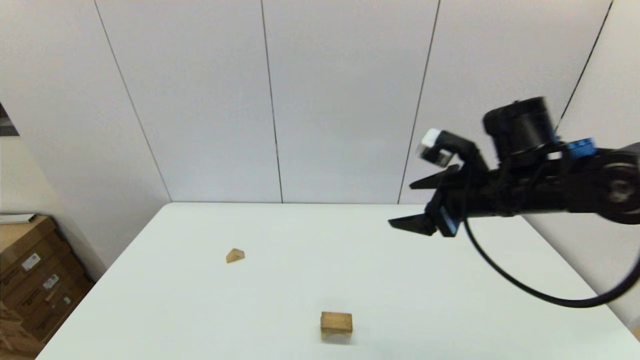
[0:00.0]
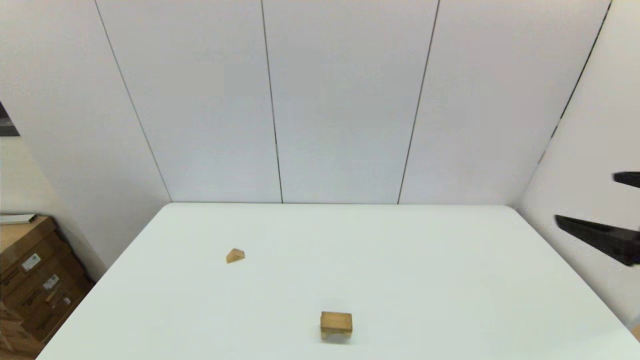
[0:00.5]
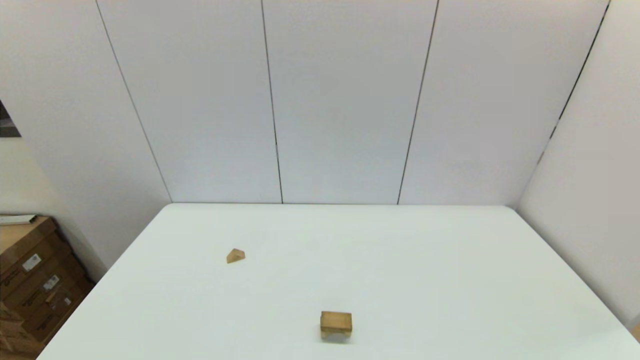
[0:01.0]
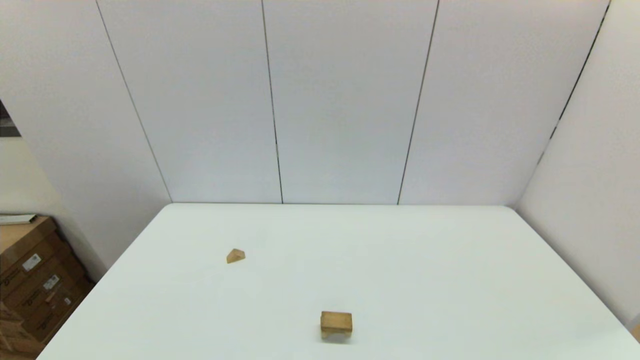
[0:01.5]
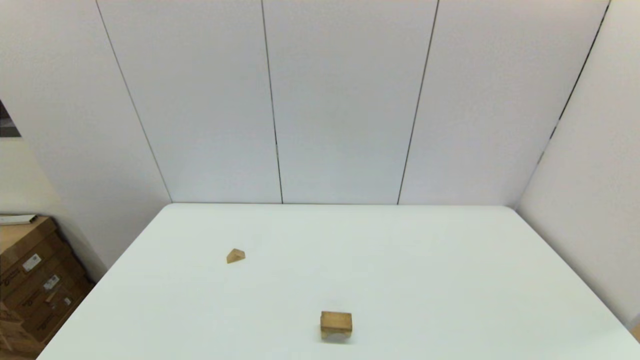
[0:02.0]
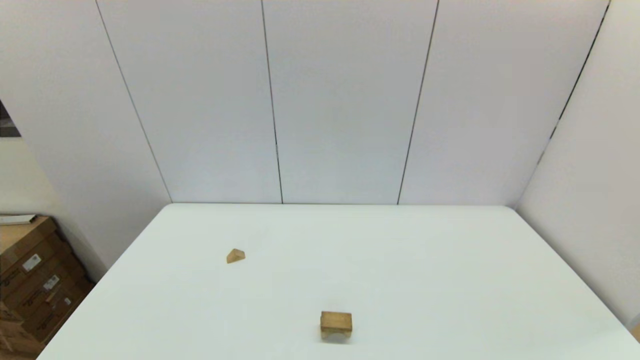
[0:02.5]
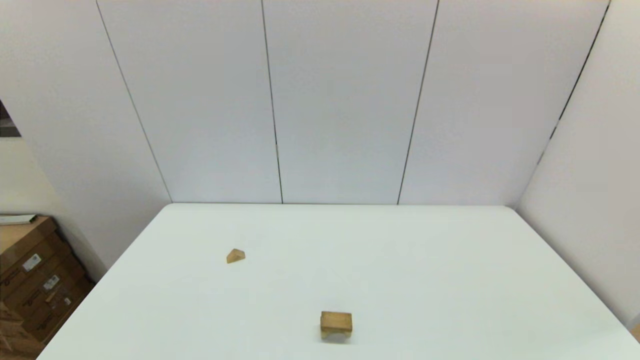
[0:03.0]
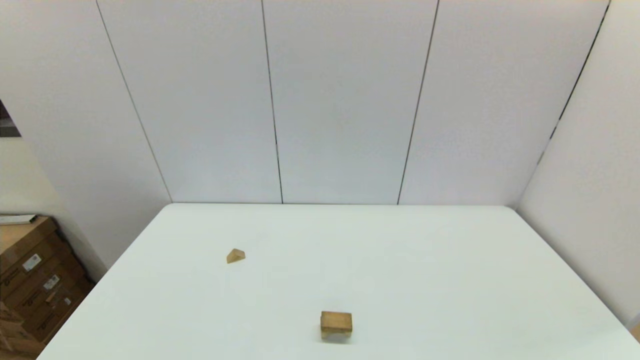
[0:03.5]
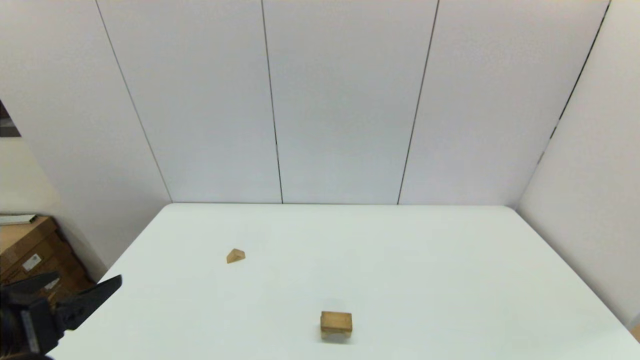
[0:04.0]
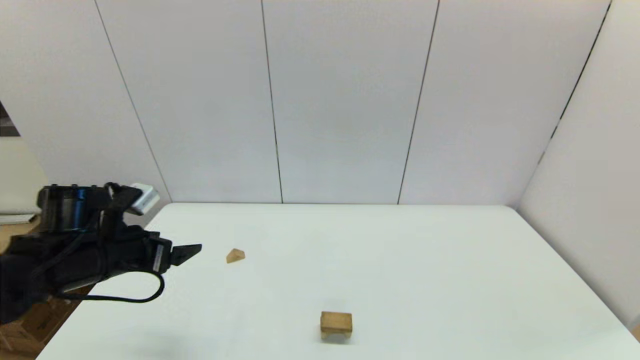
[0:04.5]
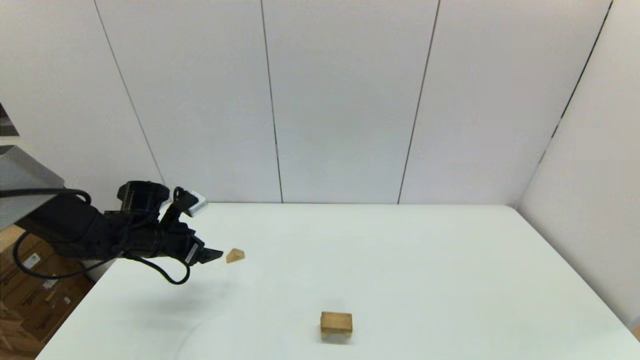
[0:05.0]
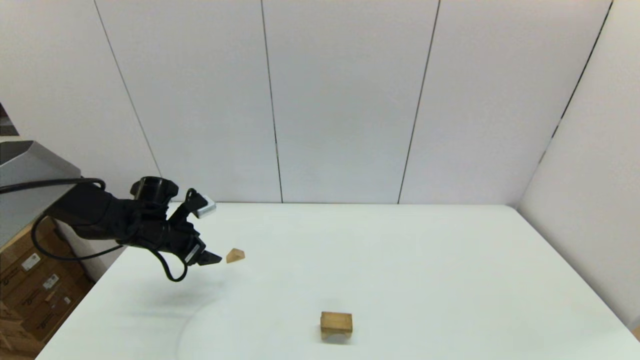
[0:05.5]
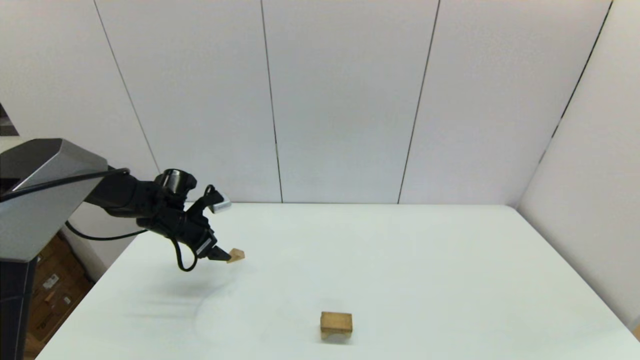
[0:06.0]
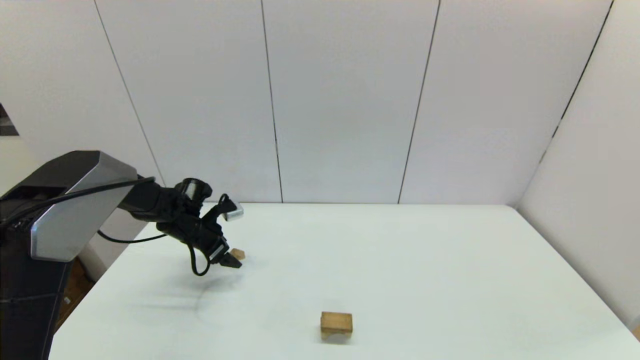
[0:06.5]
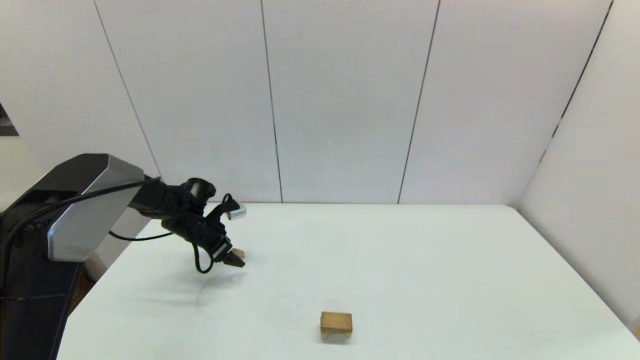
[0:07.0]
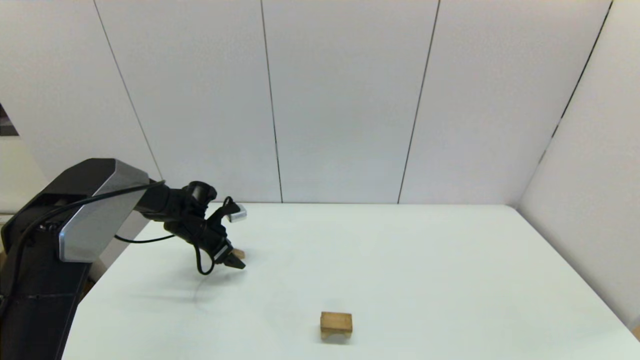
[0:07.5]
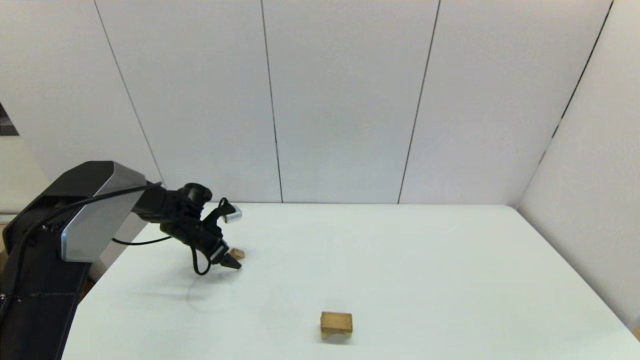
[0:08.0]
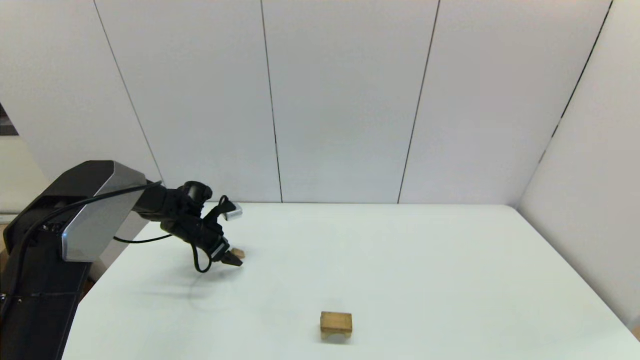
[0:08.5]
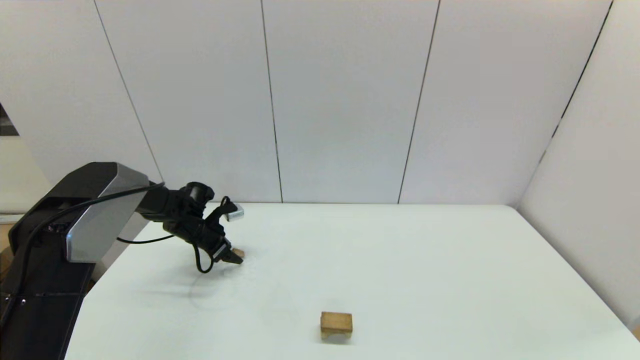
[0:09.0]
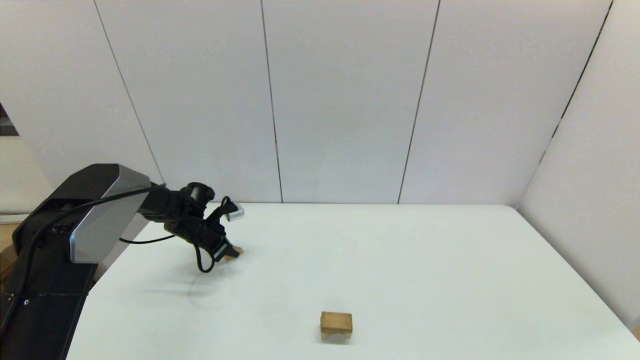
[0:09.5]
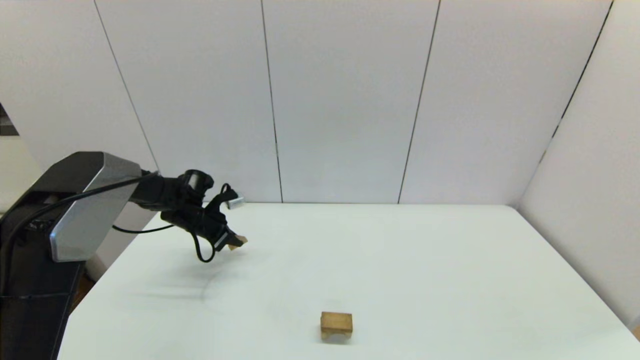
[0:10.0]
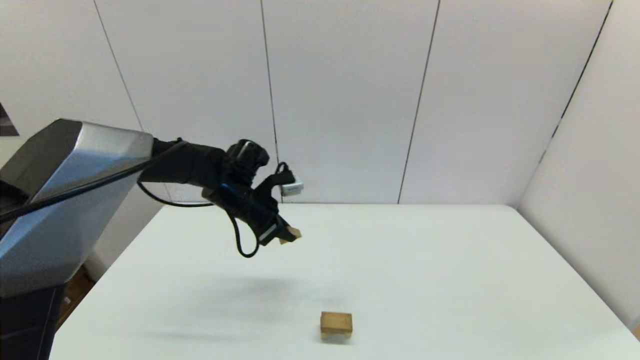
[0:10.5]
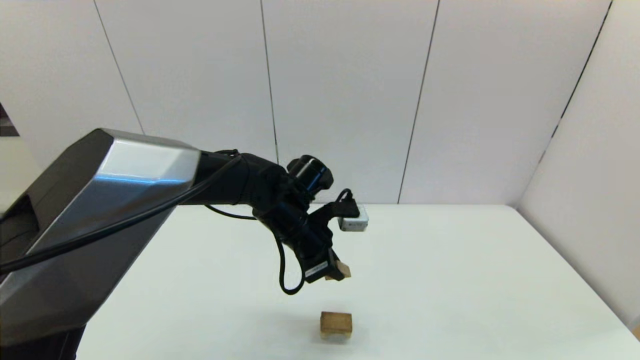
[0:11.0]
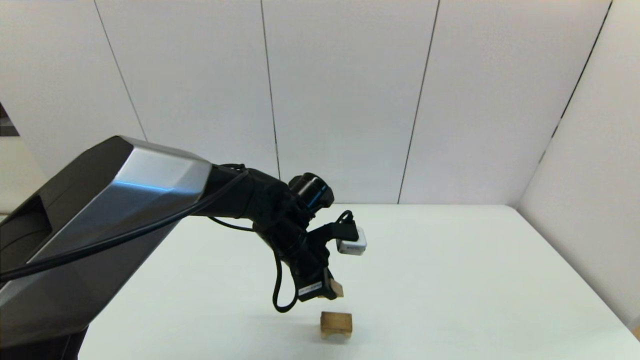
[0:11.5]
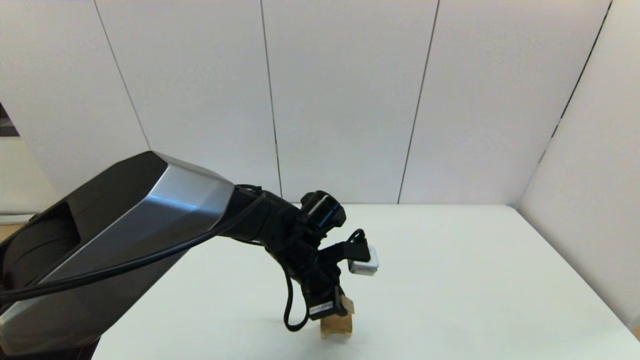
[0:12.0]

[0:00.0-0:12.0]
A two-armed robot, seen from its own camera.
Task of the whole recording: place the arched building blocks in the center of the table, set up the rectangular building blocks, and then set up the triangular building blocks.
Step, 0:00.0 to 0:09.5: Grasp the triangle-shaped block with the left gripper.
0:00.0 to 0:02.0: The right gripper goes some 35 cm backward.
0:02.0 to 0:04.0: The left gripper moves forward and upward, approximately 15 cm.
0:04.0 to 0:06.0: The left gripper travels forward and downward by approximately 35 cm.
0:06.0 to 0:08.0: The left gripper heads downward, covering roughly 5 cm.
0:08.0 to 0:10.0: The left gripper closes up.
0:10.0 to 0:12.0: The left gripper moves to the right and backward, roughly 30 cm.

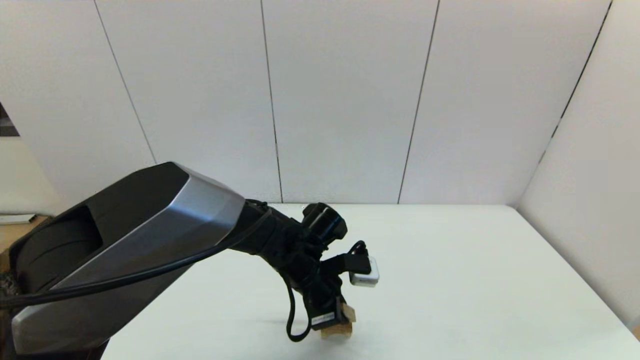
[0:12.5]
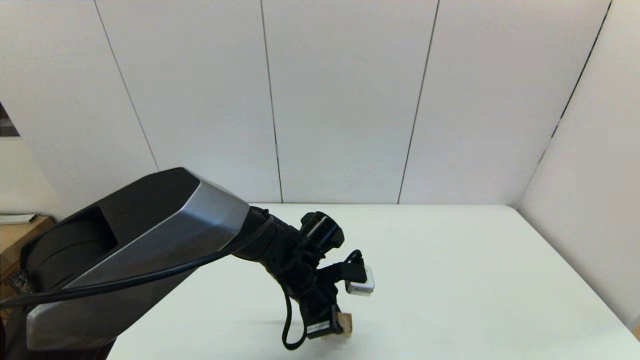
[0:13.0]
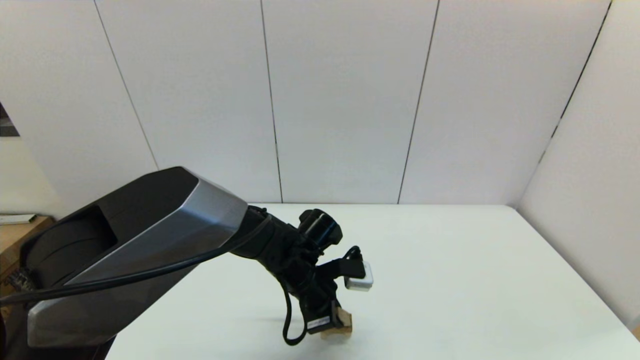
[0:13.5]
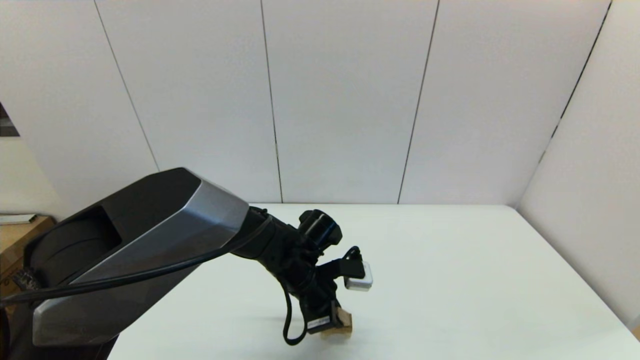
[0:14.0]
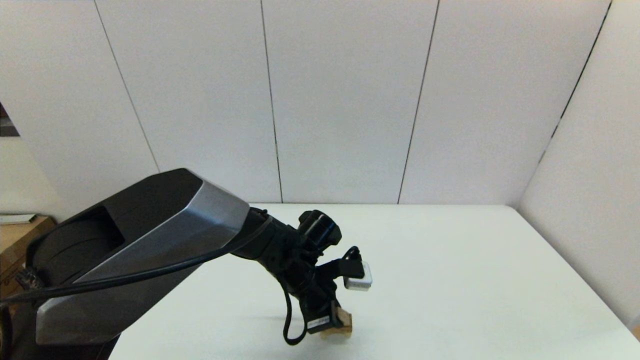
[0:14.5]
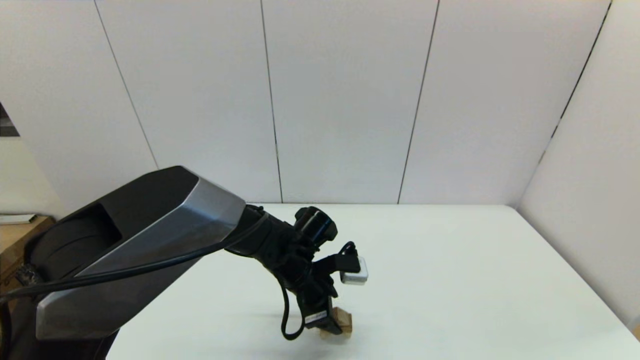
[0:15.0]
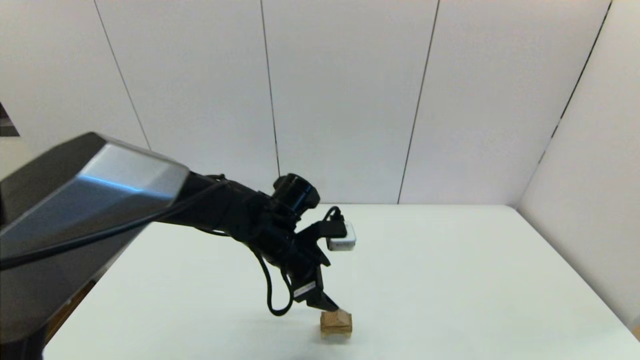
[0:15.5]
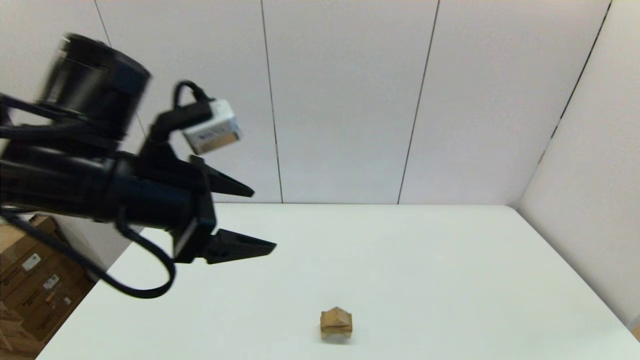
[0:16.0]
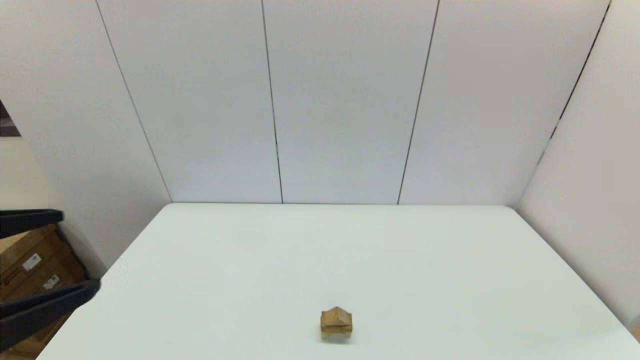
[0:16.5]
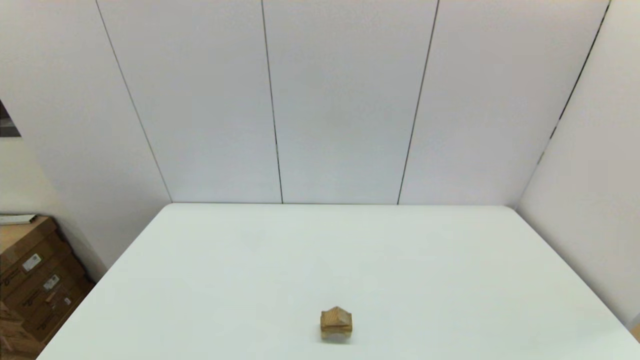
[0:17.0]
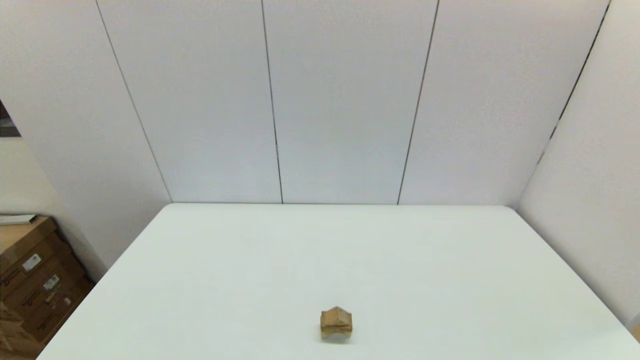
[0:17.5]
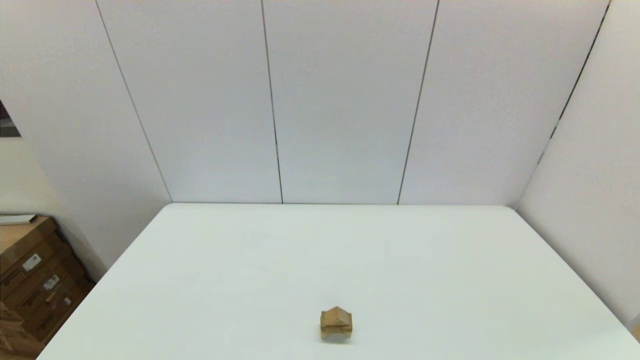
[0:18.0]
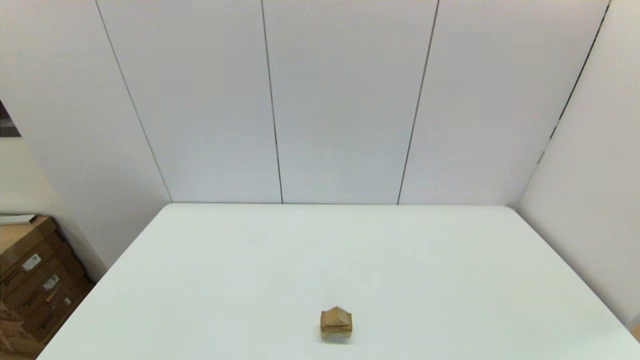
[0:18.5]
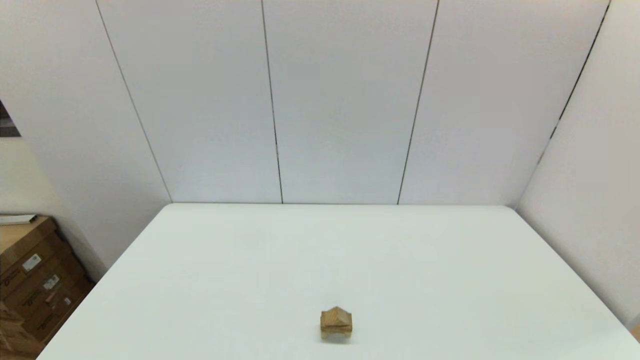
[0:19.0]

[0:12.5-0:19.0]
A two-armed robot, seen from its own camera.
Task of the whole recording: place the arched building blocks in the center of the table, set up the rectangular building blocks, and then set up the triangular building blocks.
0:12.5 to 0:14.5: The grippers move only a little.
0:14.5 to 0:17.0: The left gripper heads backward, to the left and upward, covering roughly 50 cm, and opens its fingers.
